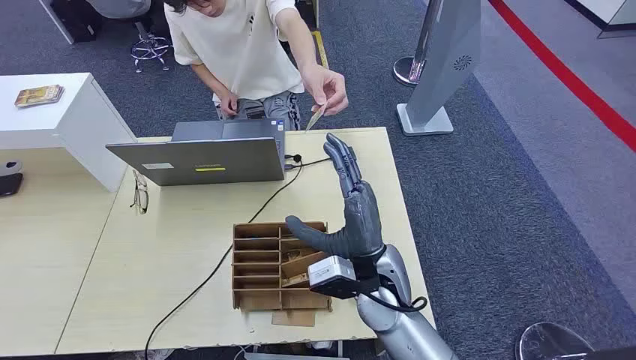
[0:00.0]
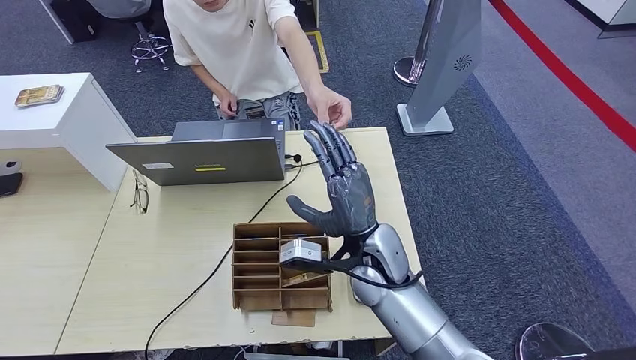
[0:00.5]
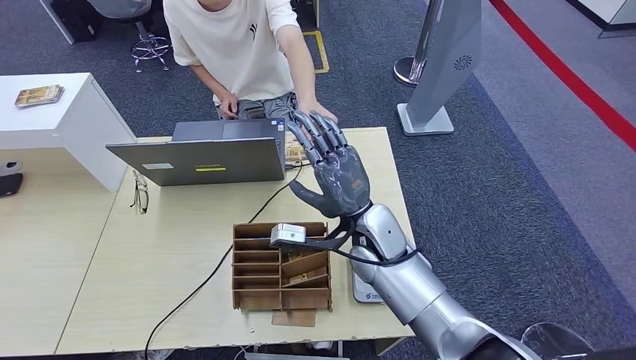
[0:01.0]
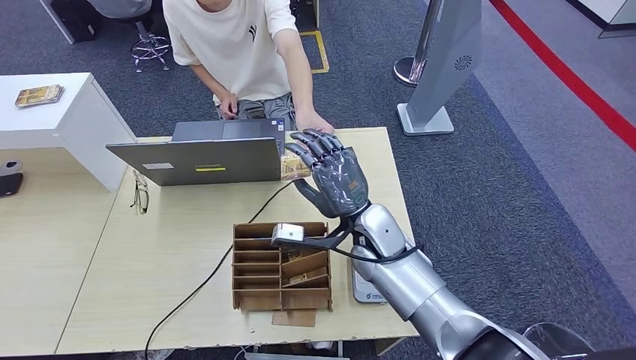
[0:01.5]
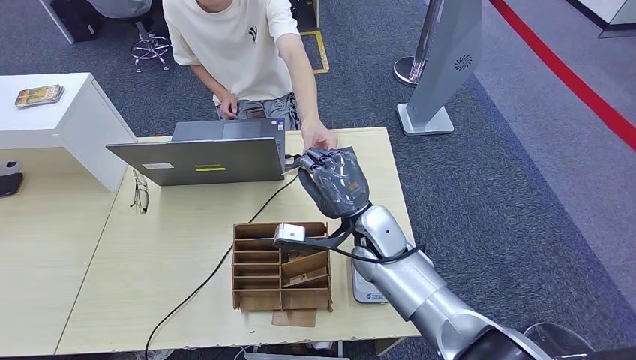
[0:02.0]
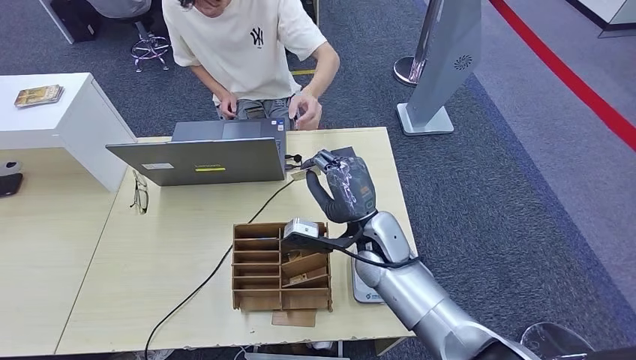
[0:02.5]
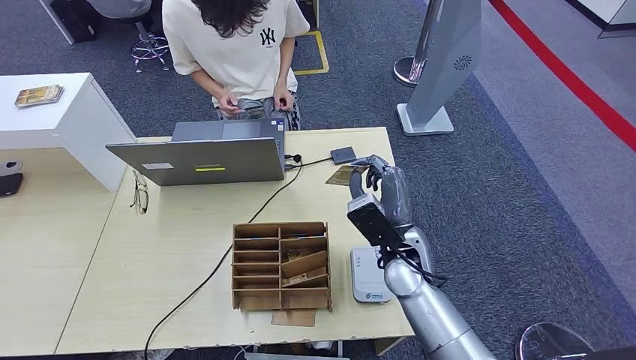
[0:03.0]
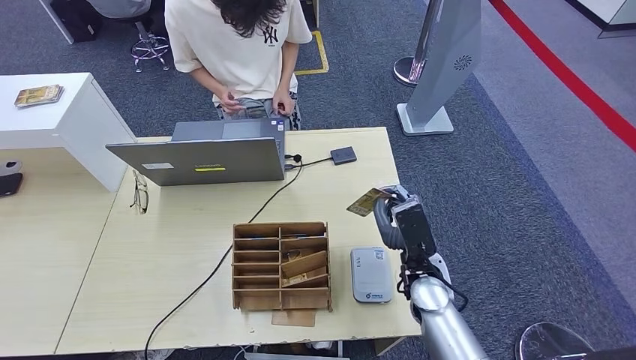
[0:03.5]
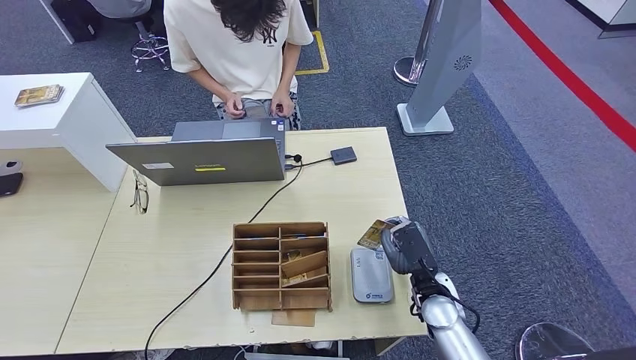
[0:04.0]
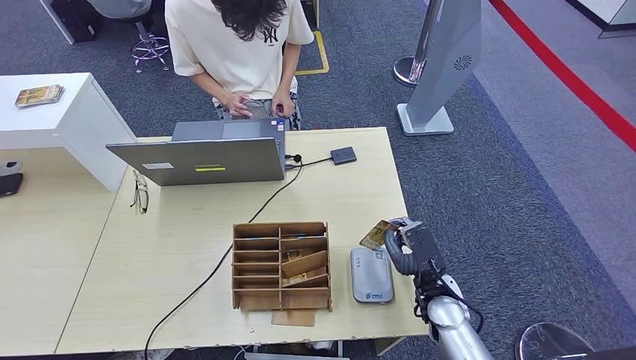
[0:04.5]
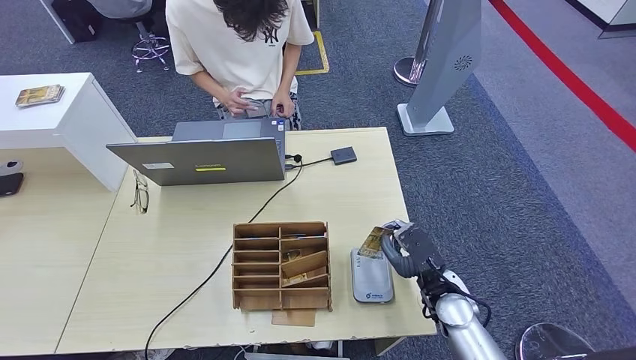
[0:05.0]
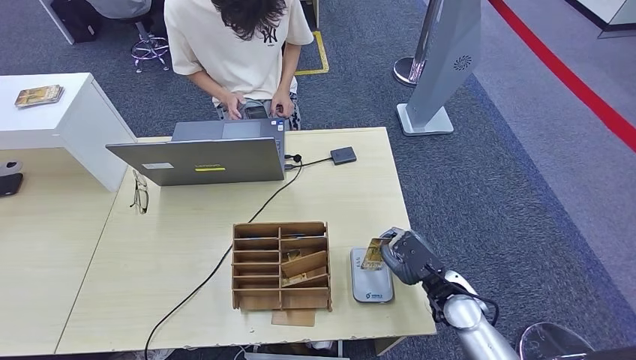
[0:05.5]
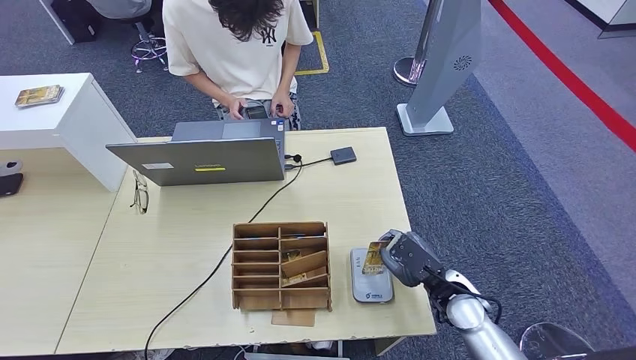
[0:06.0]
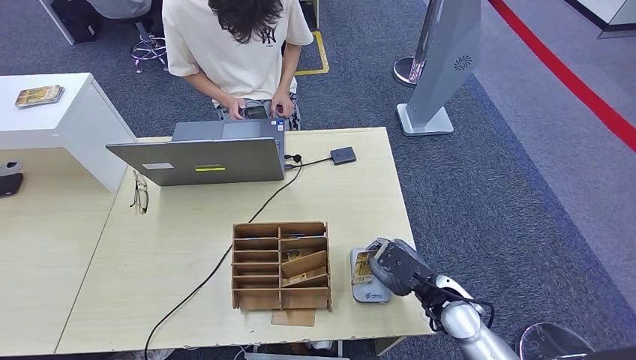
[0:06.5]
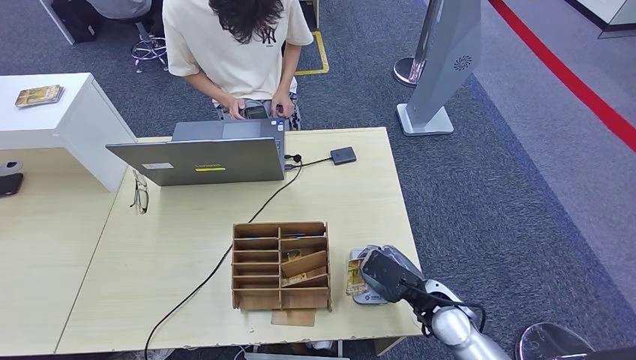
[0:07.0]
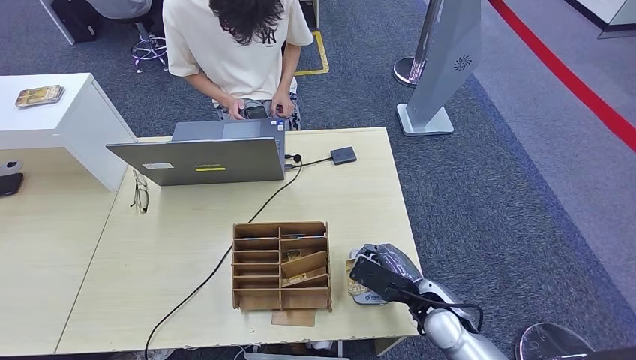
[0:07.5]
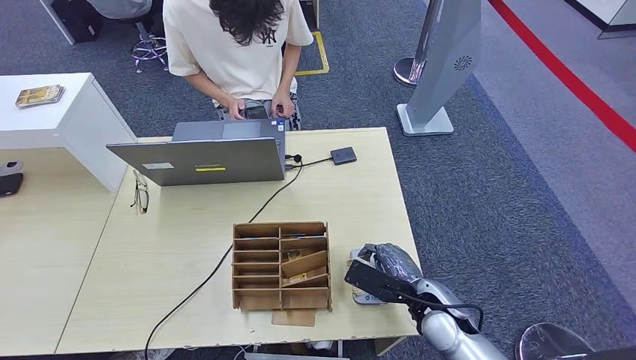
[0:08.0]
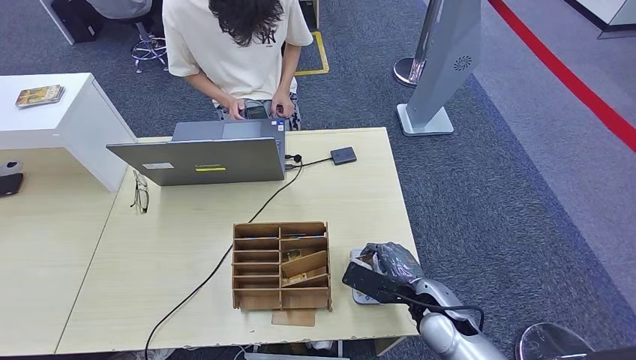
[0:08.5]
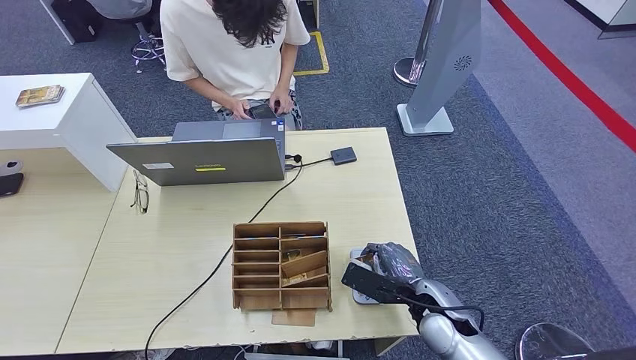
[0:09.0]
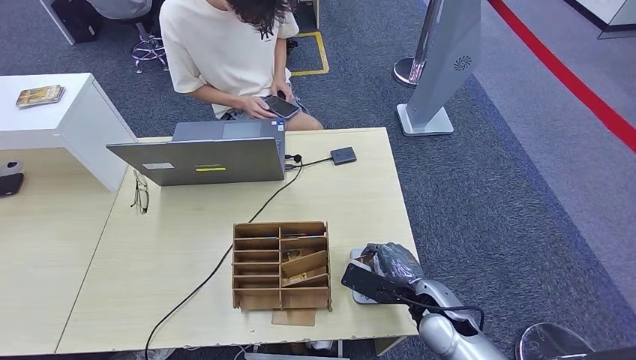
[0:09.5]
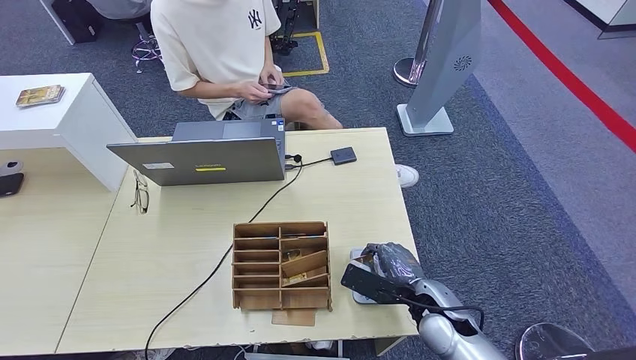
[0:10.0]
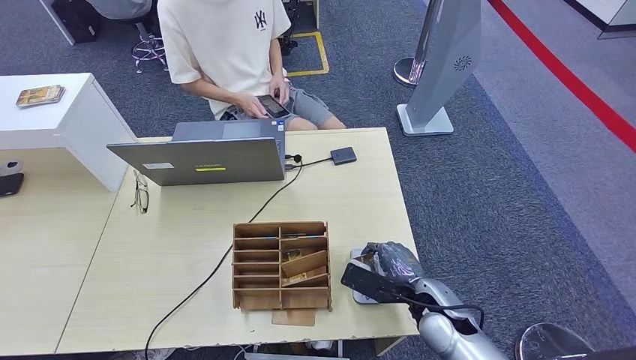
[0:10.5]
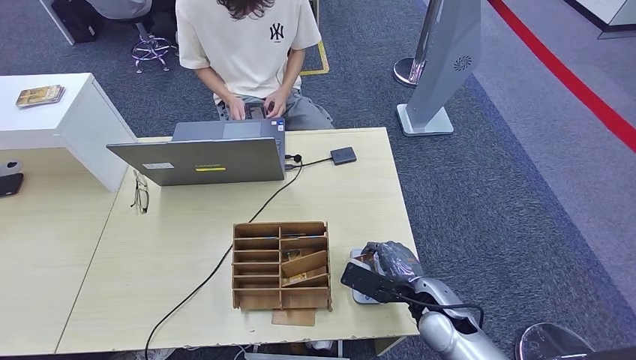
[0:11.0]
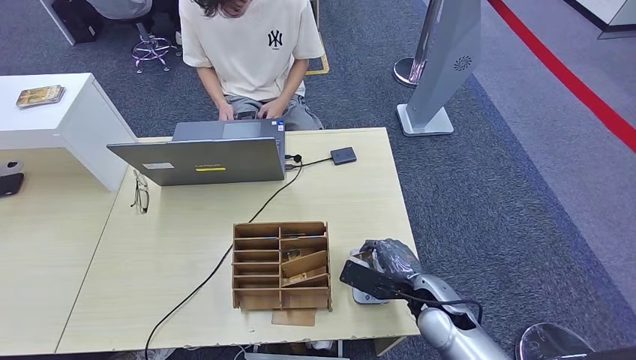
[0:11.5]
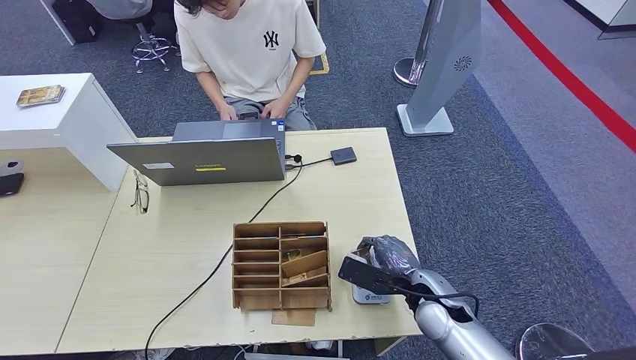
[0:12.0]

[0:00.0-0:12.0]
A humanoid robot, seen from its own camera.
Step, 0:00.0 to 0:02.0: Take the ID card from the person's hand.
Step, 0:02.5 to 0:06.0: Place the ID card on the card reader.
0:02.0 to 0:04.0: The right hand moves downward, to the right and backward, about 20 cm.
0:04.0 to 0:06.0: The right hand shifts roughly 5 cm to the right.
0:06.0 to 0:08.0: The right hand changes place by about 5 cm.
0:08.0 to 0:12.0: The hands make only small movements.

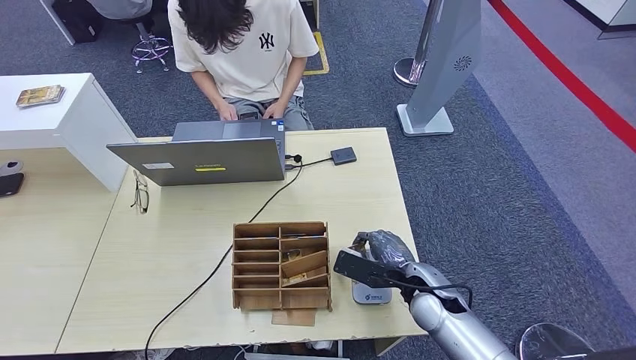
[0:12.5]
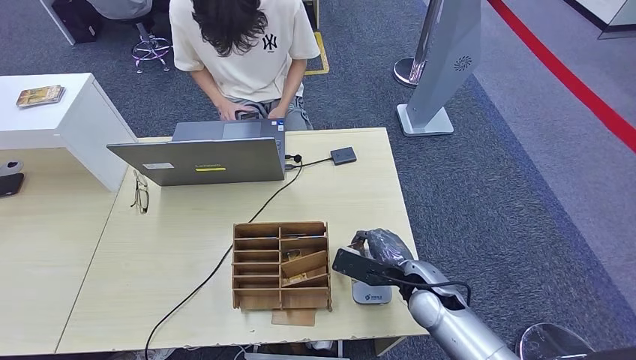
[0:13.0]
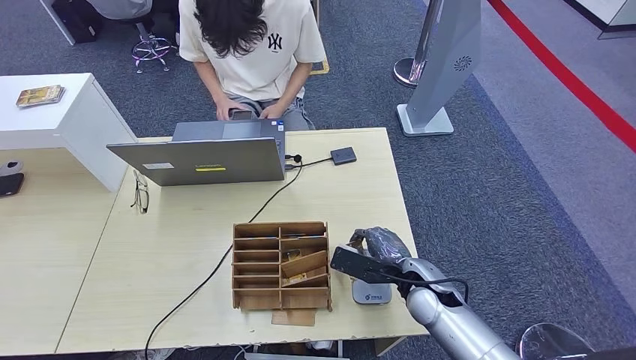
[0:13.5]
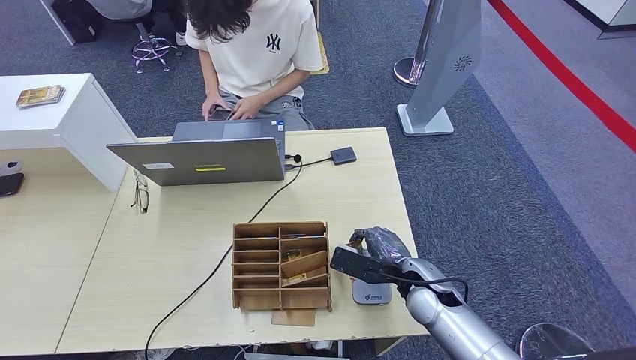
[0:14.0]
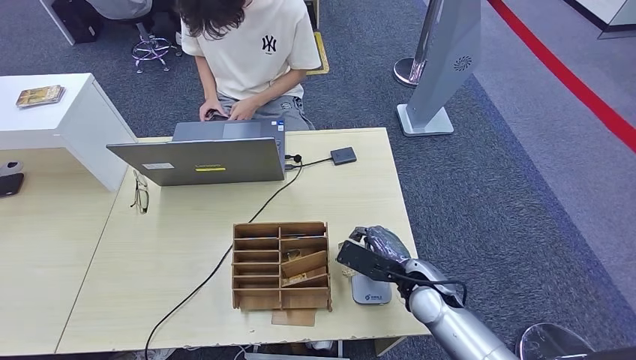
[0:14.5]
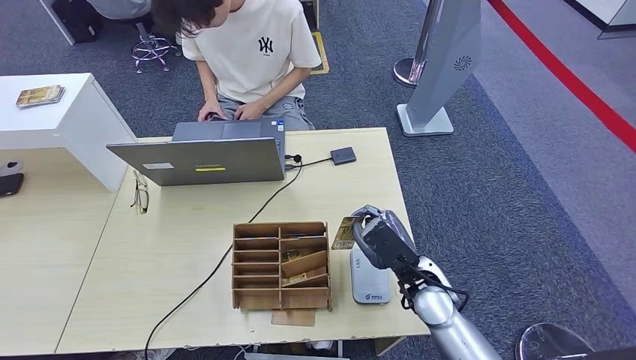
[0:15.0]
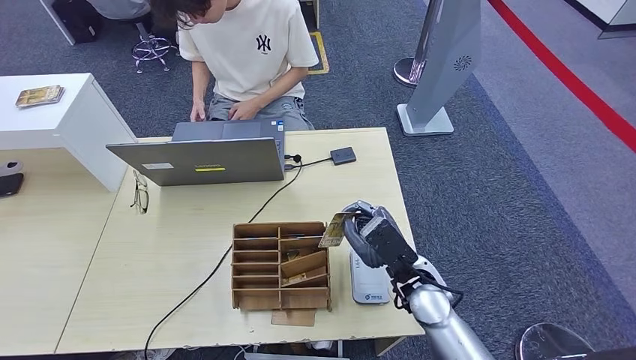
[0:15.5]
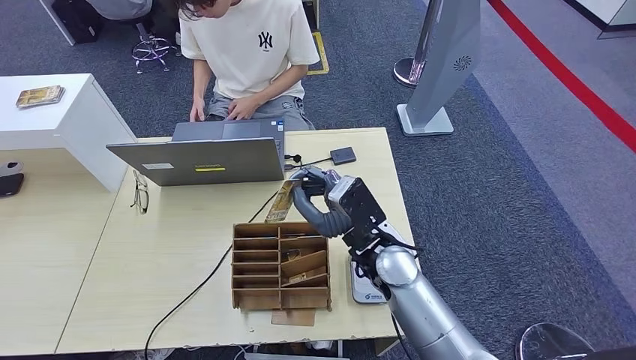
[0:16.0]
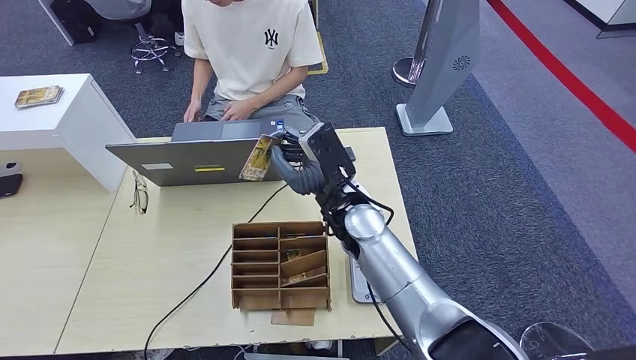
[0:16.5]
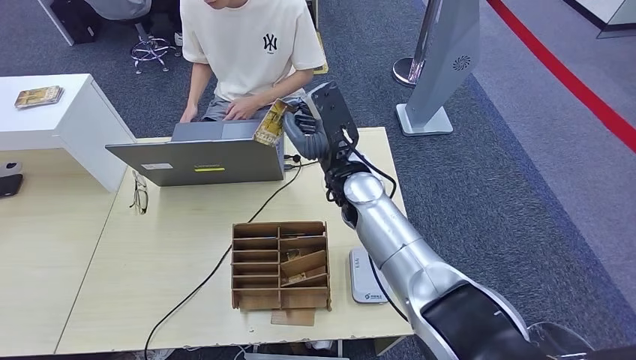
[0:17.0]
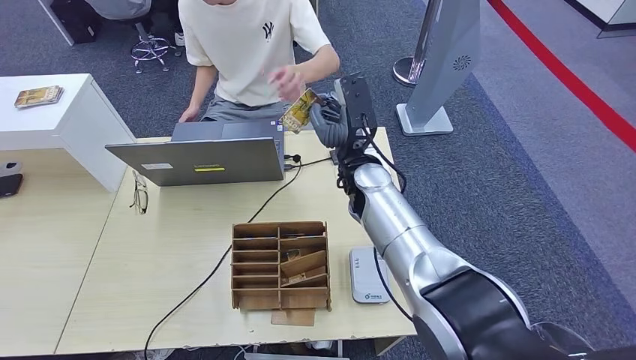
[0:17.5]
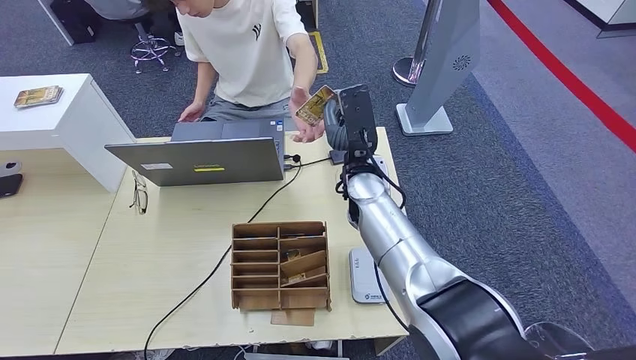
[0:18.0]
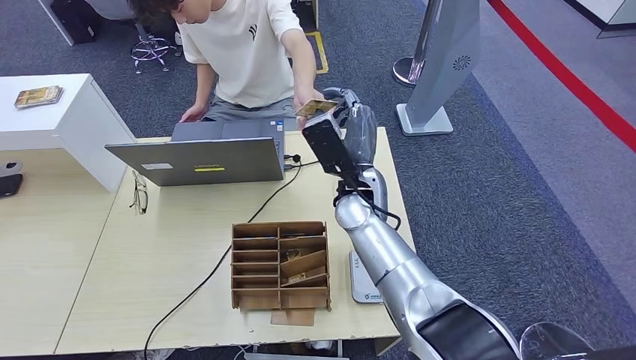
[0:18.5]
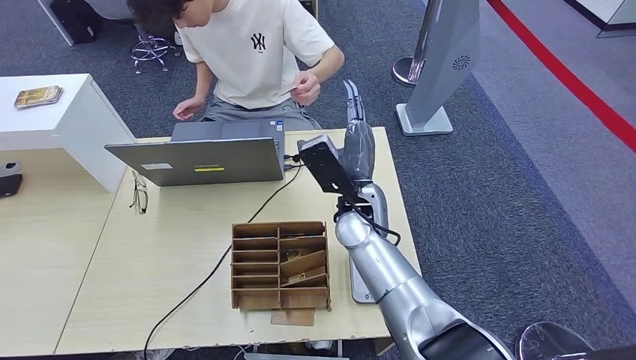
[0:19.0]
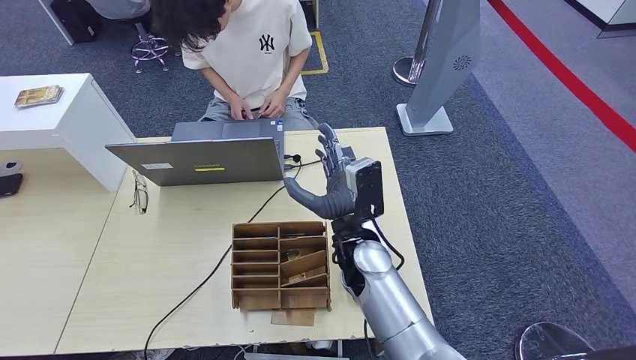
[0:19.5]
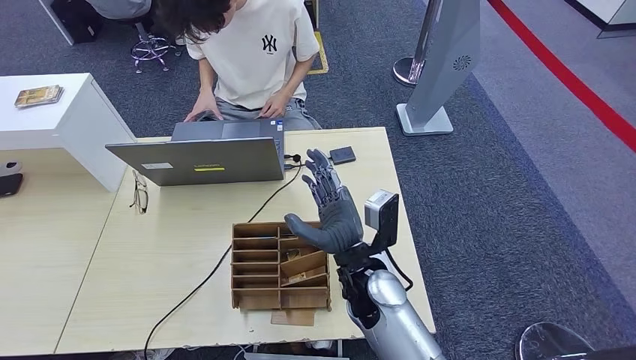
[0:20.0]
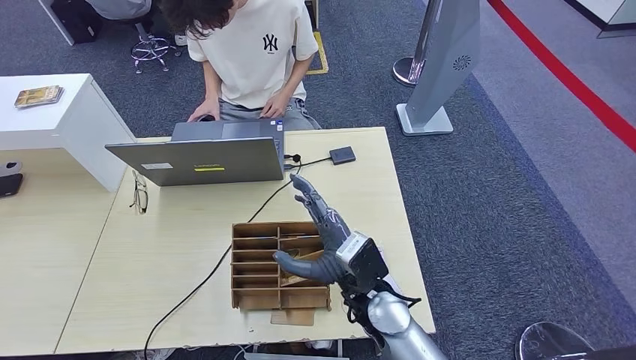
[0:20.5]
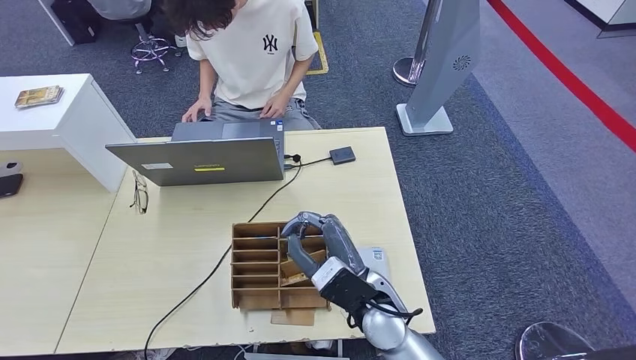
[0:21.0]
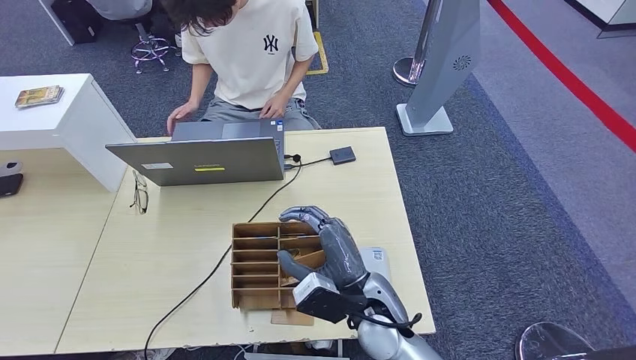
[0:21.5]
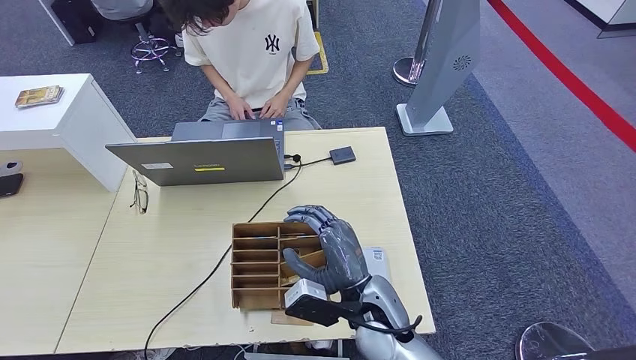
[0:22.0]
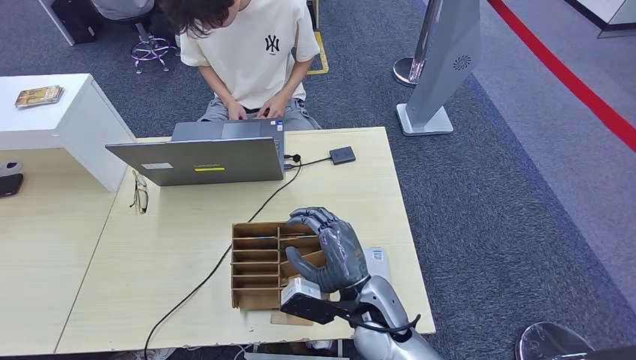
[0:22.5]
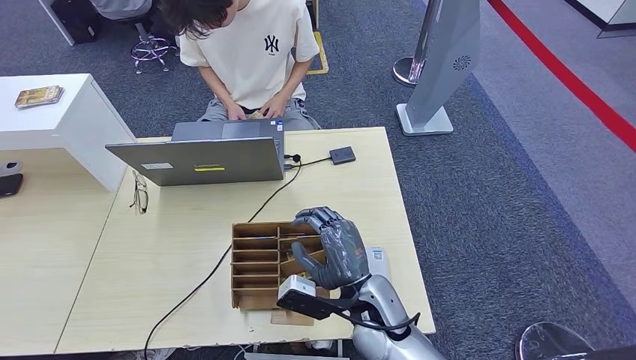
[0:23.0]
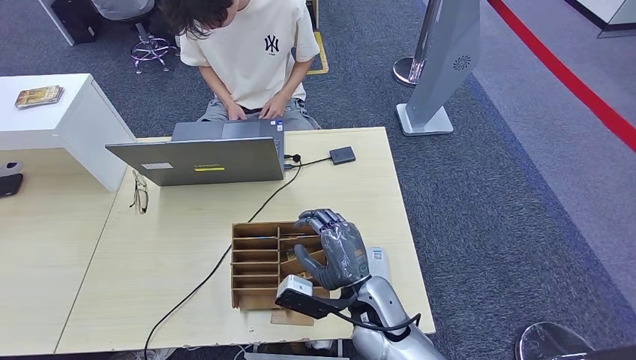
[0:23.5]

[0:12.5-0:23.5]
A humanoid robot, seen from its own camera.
Step, 0:12.5 to 0:19.5: Hand the ID card to the person.
0:12.5 to 0:14.5: The hands move only a little.
0:14.5 to 0:16.0: The right hand heads upward and to the left, covering some 15 cm.
0:16.0 to 0:18.0: The right hand shifts about 10 cm forward.
0:18.0 to 0:20.0: The right hand moves backward and downward, roughly 15 cm.
